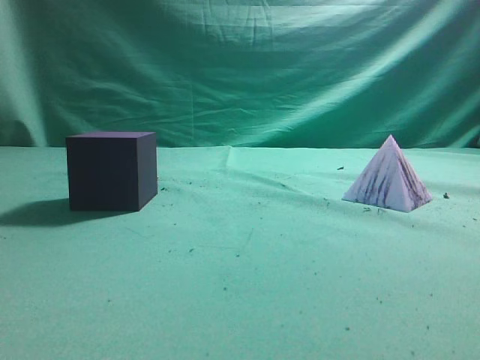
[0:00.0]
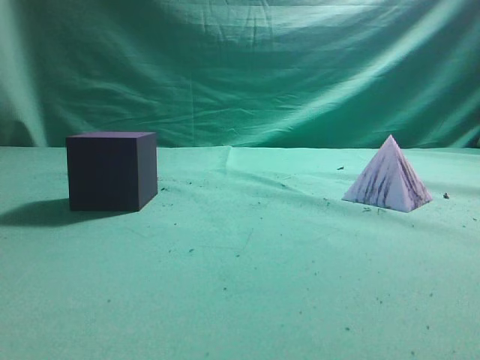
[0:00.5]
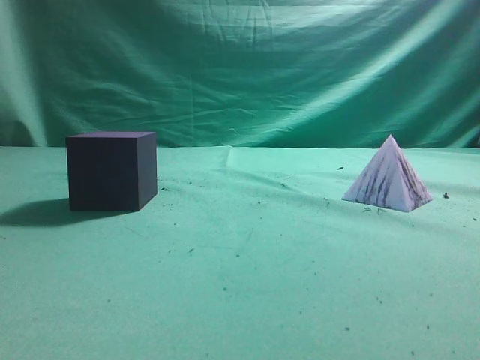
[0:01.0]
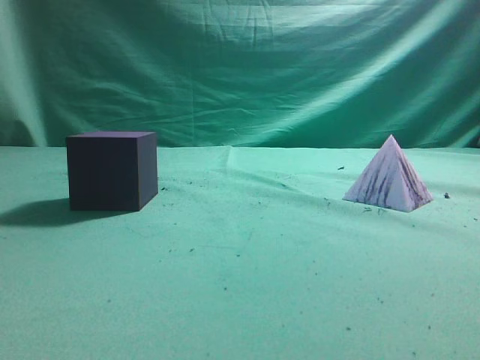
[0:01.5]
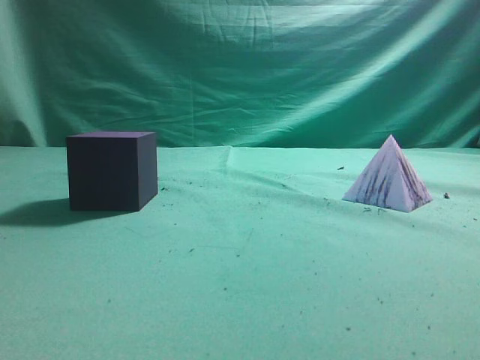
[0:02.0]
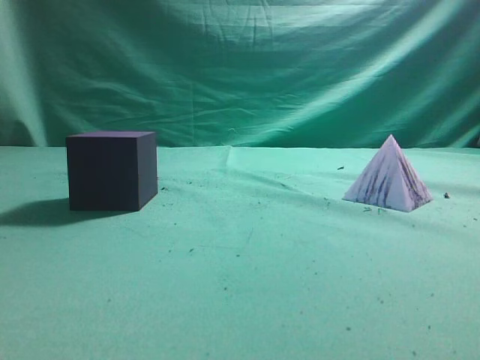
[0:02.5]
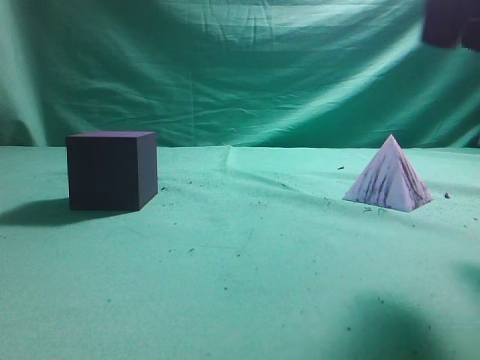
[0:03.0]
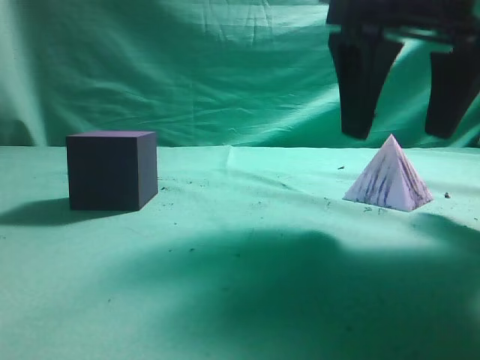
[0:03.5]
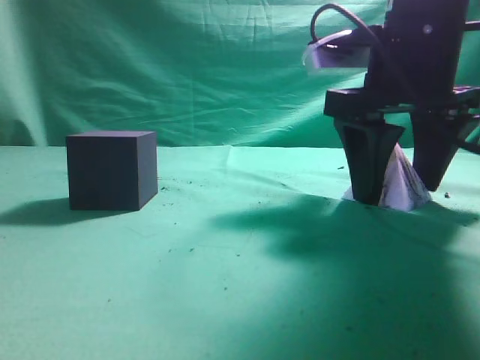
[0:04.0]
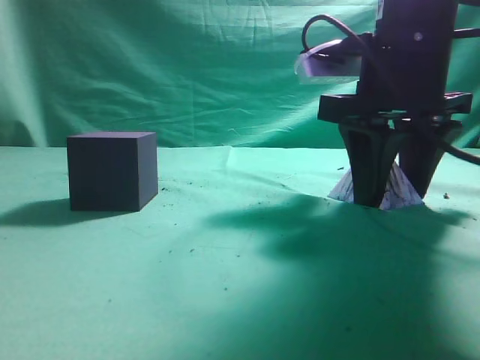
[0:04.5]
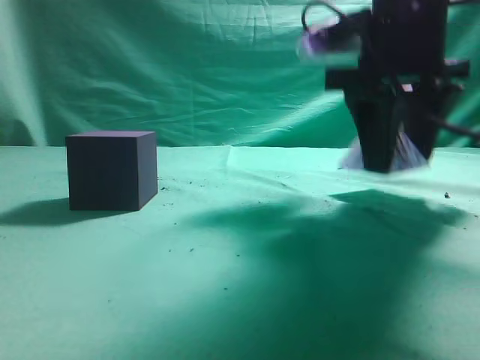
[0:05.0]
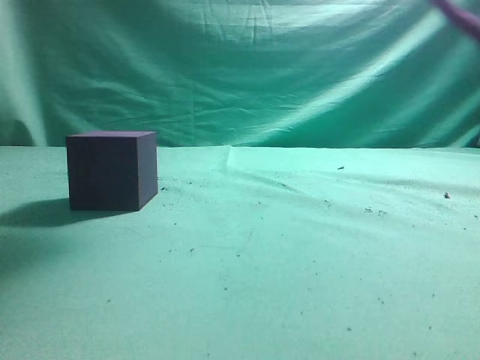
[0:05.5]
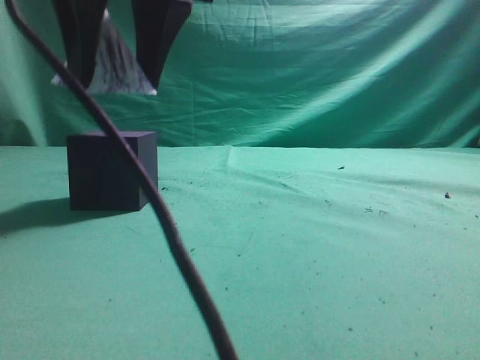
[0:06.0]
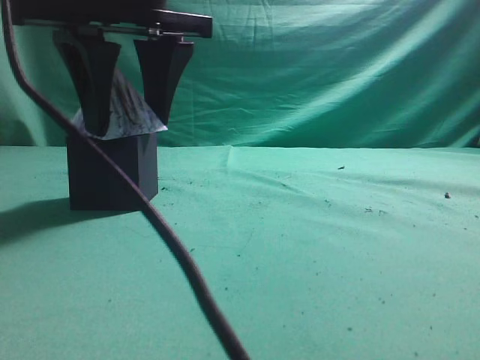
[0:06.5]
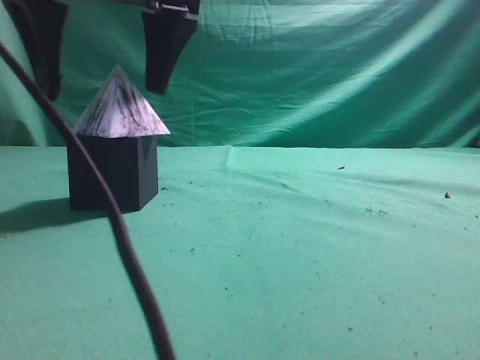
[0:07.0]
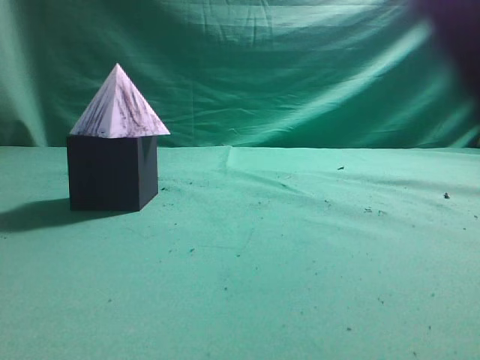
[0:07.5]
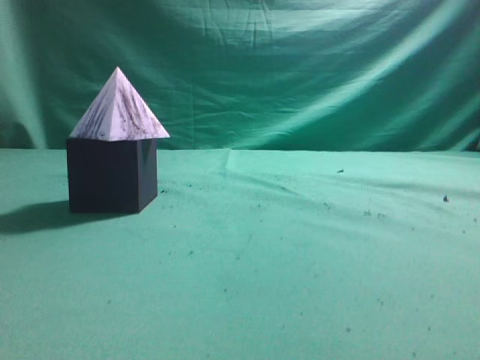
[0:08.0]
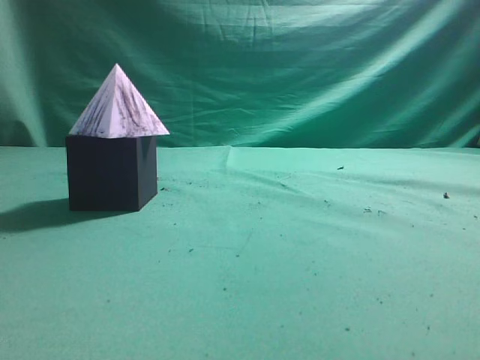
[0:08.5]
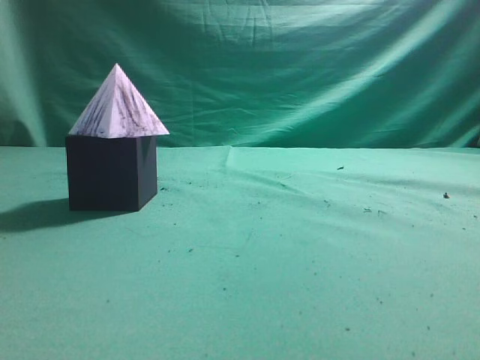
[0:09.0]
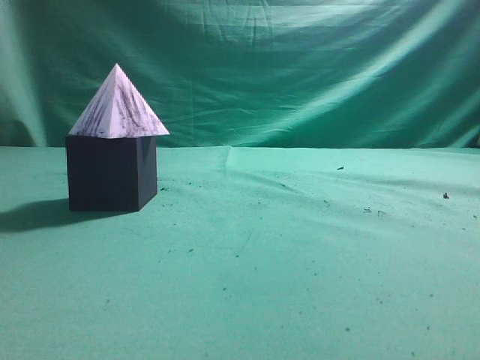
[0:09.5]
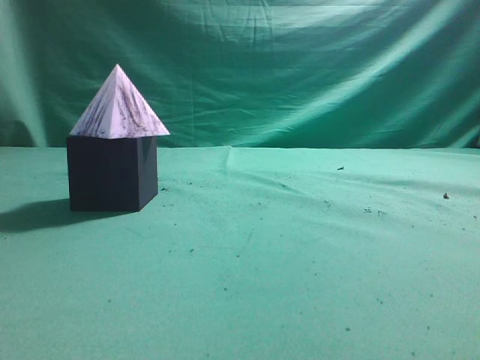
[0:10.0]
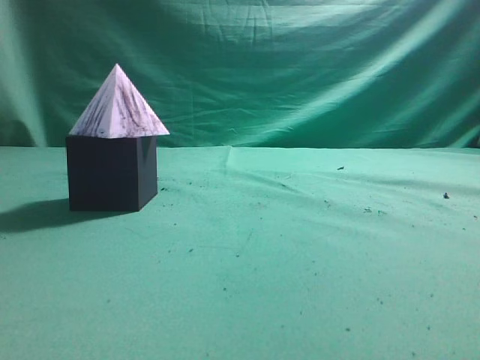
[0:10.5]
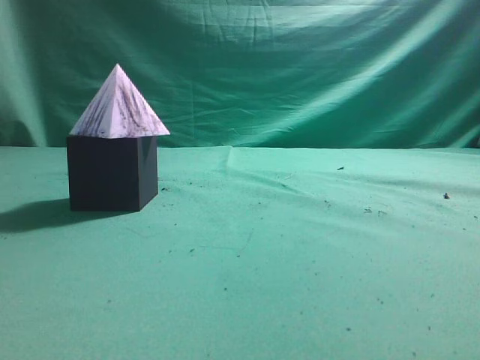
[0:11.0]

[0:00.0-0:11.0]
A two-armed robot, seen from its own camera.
Task of the whole recording: pick up the square pyramid from the table and place it on the cube block.
Step, 0:00.0 to 0:05.0: Grasp the triangular block.
Step, 0:05.5 to 0:07.0: Place the block onto the cube-shaped block.
0:02.0 to 0:03.5: The right gripper goes approximately 25 cm forward and to the left, and opens up.
0:03.5 to 0:05.5: The right gripper is displaced upward and to the left by roughly 15 cm, and closes its fingers.
0:05.5 to 0:07.5: The right gripper travels to the left, upward and backward by approximately 10 cm, and closes up.
0:07.5 to 0:09.0: The right gripper moves to the right and backward, some 35 cm.
